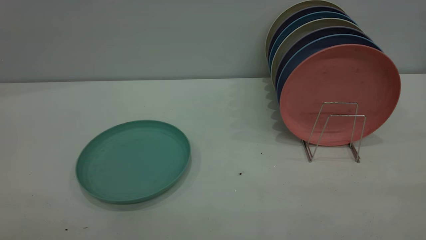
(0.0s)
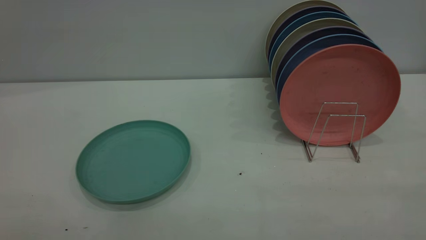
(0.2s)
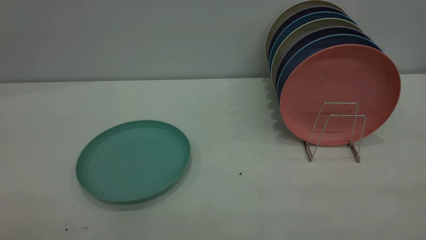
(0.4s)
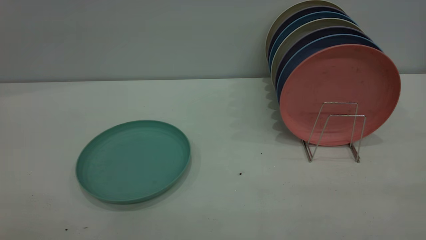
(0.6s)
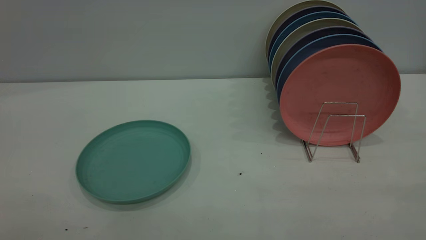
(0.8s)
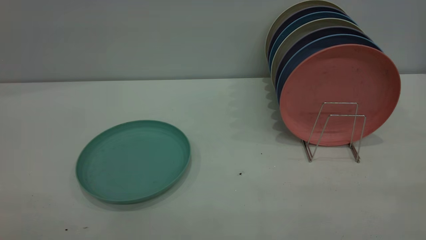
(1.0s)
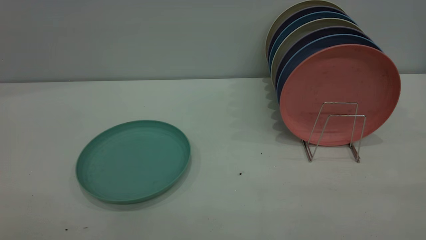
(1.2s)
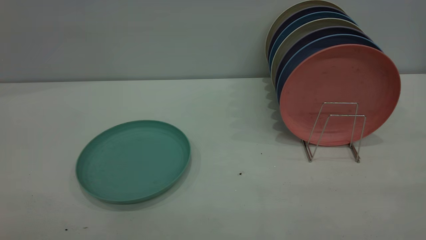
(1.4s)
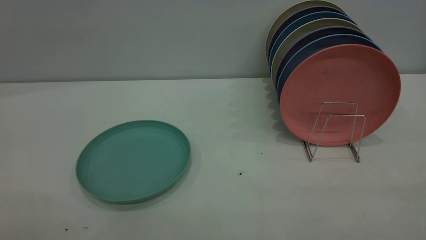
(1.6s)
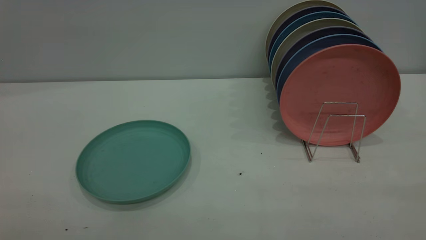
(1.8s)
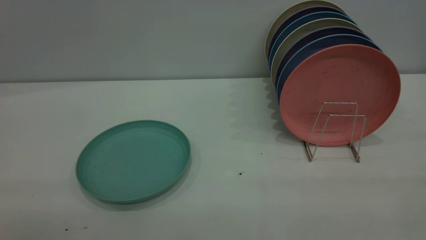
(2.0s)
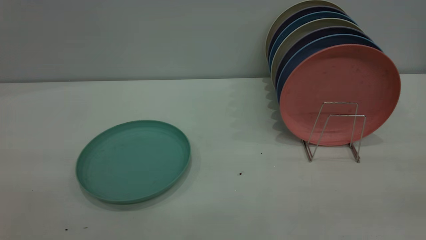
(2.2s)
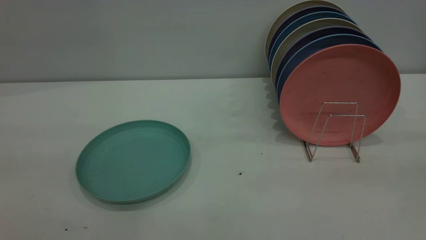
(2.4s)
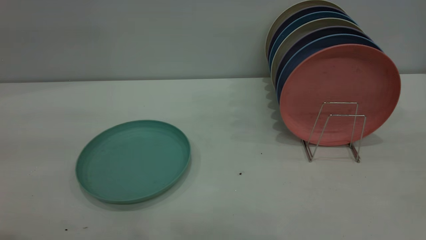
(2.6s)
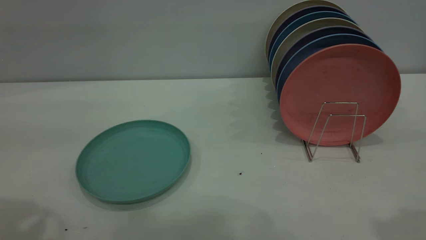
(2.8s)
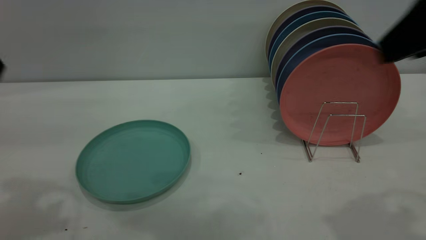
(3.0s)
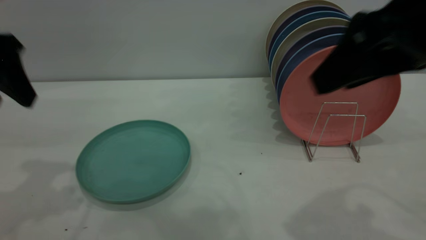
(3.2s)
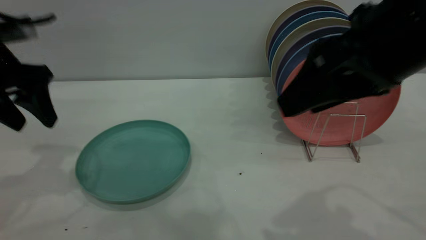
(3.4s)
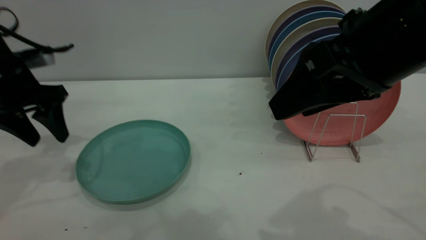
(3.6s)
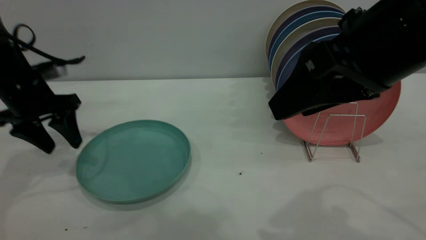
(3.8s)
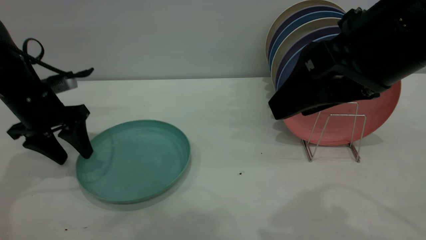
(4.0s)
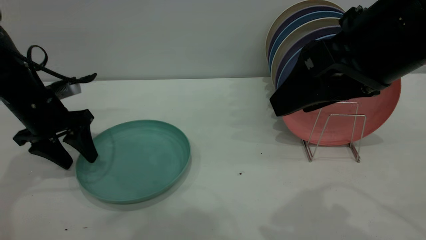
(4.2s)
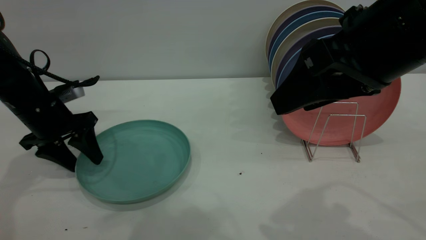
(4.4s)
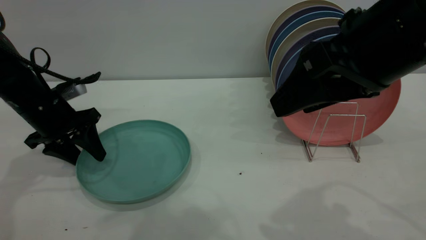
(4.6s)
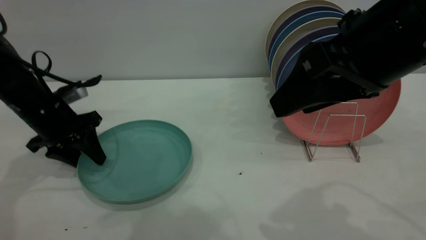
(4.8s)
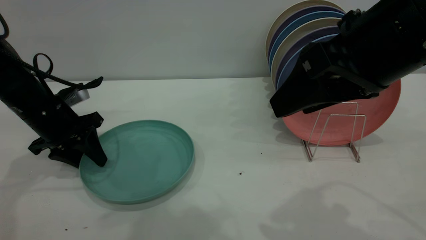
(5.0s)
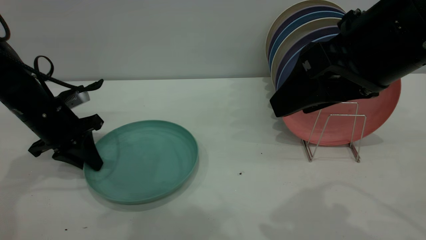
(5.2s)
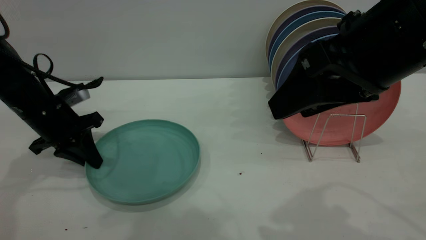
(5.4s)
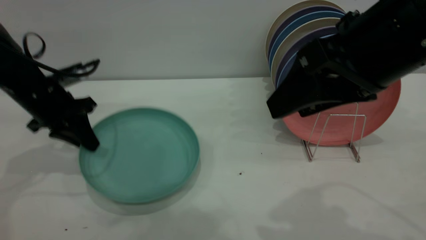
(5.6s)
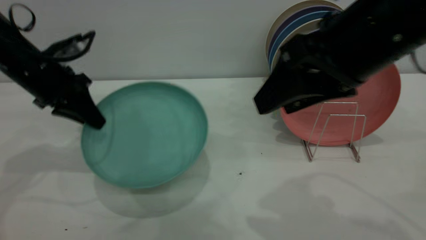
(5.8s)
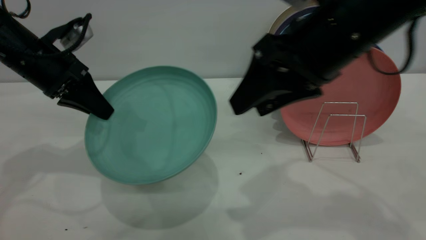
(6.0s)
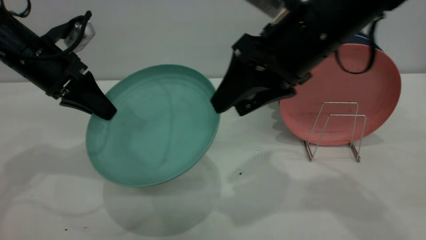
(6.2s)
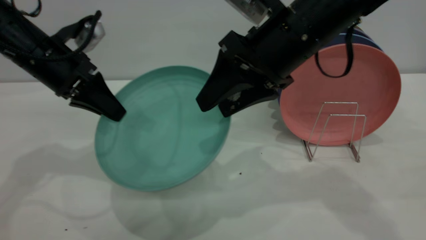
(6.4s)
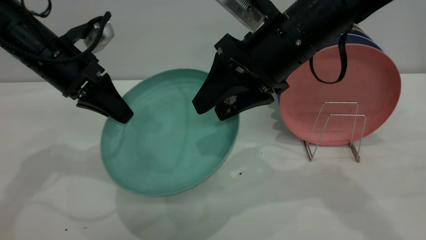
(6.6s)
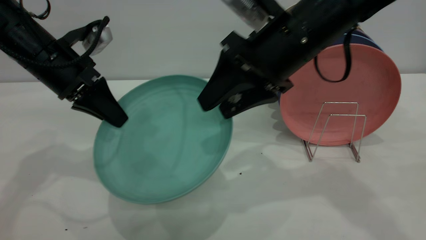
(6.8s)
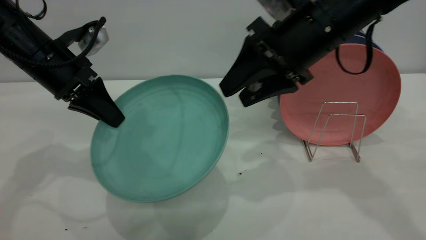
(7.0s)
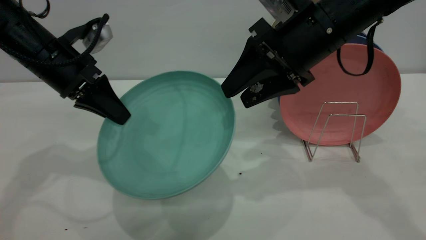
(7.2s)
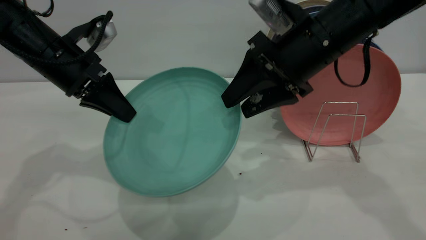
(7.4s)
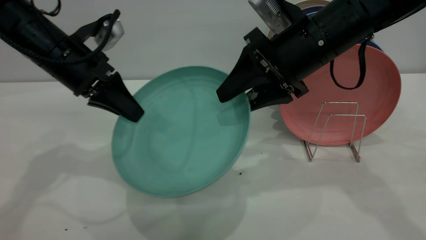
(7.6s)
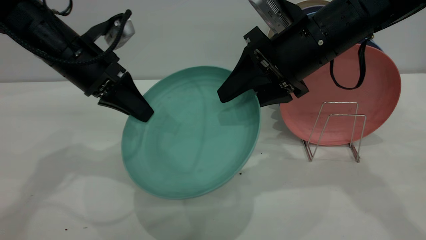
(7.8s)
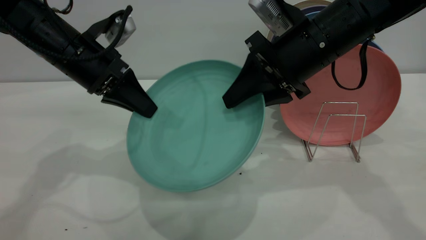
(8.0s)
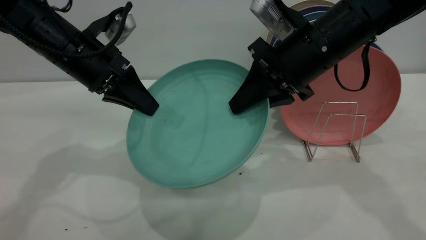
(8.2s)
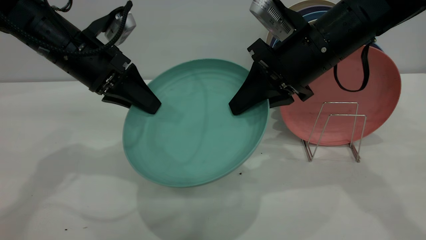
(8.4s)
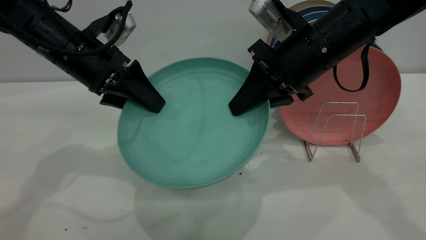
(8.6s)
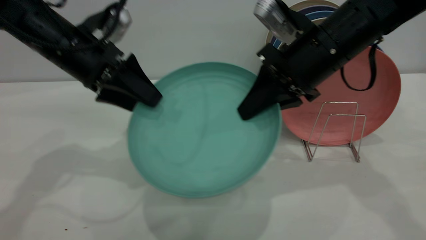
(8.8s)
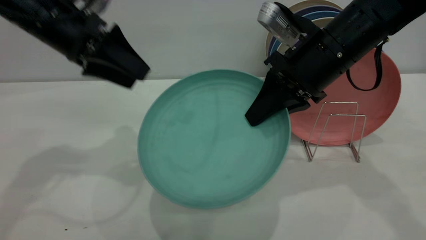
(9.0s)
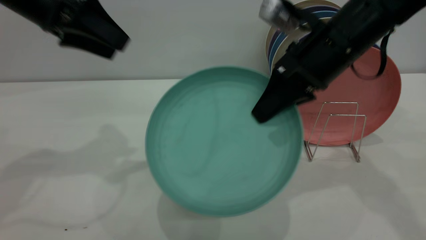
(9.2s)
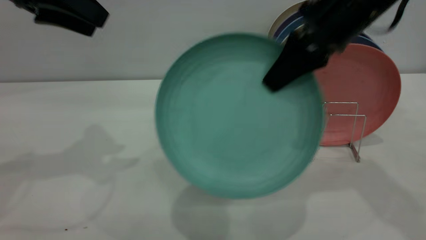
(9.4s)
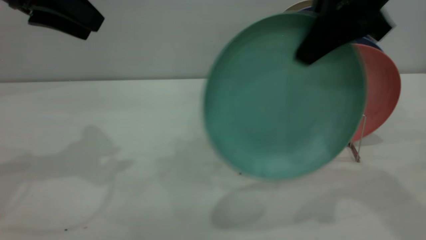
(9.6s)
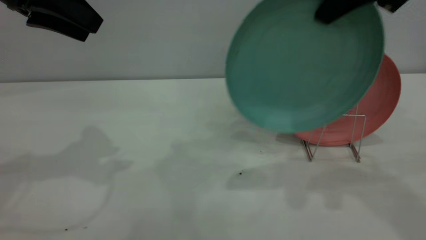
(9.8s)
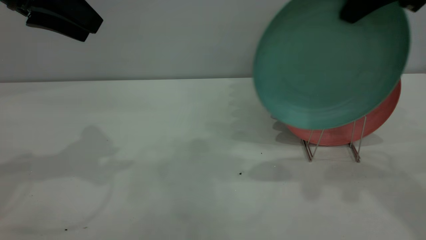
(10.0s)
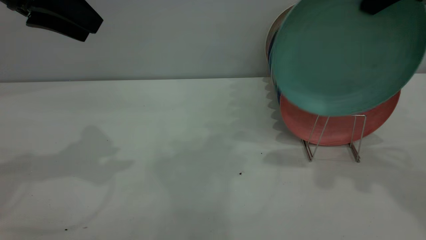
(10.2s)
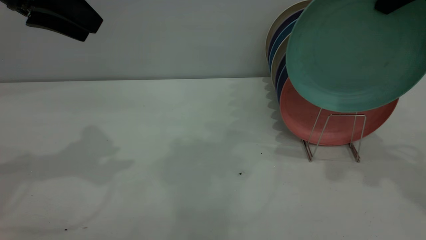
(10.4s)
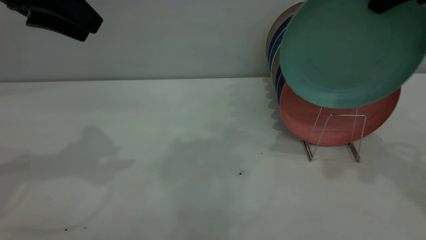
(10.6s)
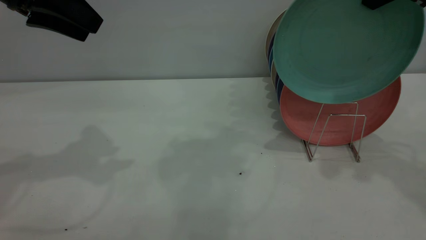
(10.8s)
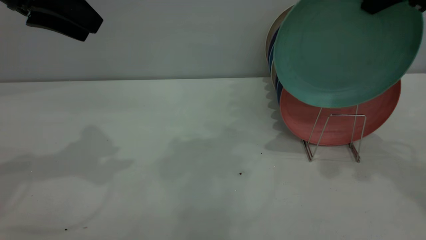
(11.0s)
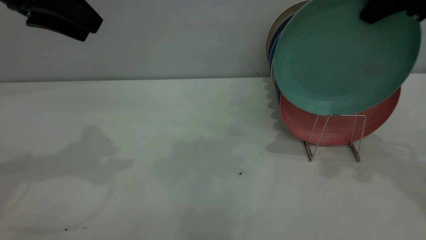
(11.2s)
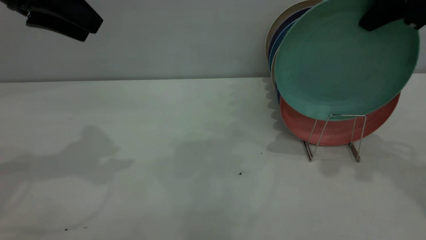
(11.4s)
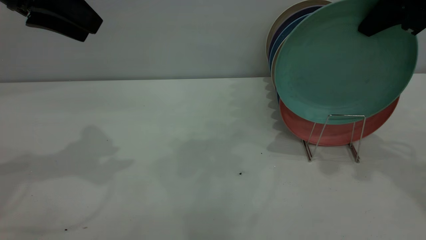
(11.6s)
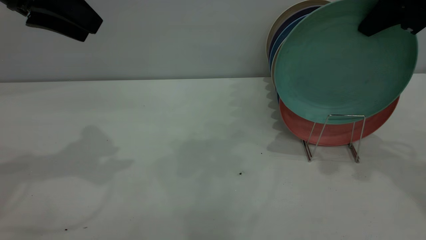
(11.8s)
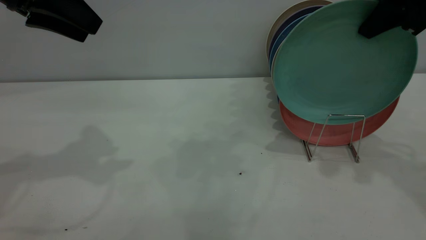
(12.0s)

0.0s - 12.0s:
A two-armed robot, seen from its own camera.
Task of the whole recording: the left gripper grasp the green plate, the left gripper pass the green plate to the right gripper, and the right gripper place the green plate on the plate rack.
Step, 0.0s - 5.6s: Pick up the plate with the left gripper.
Step, 5.8s - 9.0s: Pass the plate from the left gripper to the right gripper.
0.0s - 1.6s: Both grippers stay about where they are.
1.6s - 3.0s: The right gripper shifts about 25 cm forward.
3.0s - 4.4s: The right gripper moves to the left, about 5 cm; the left gripper goes about 25 cm downward and forward.
4.4s - 6.0s: The right gripper heads forward, covering about 5 cm; the left gripper is displaced upward by some 10 cm, and closes up.
6.0s - 7.6s: The left gripper travels to the right by about 5 cm. Meanwhile the right gripper goes some 5 cm forward.
7.6s - 9.0s: The left gripper is displaced upward by about 5 cm, and opens its fingers, while the right gripper closes.
9.0s - 10.4s: The left gripper shifts about 5 cm upward, while the right gripper travels upward and to the right by approximately 20 cm.
10.4s - 12.0s: The grippers stay close to where they were, moving slightly.

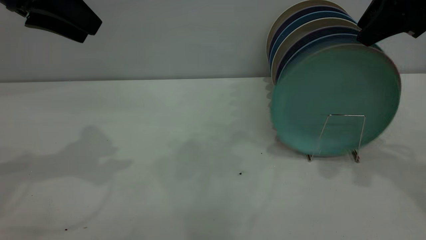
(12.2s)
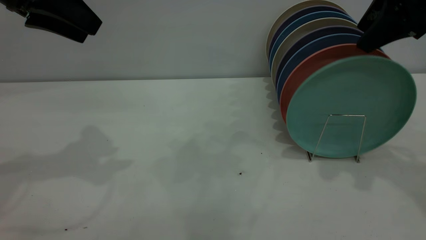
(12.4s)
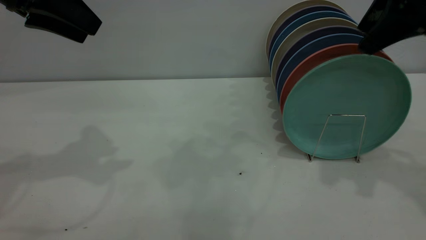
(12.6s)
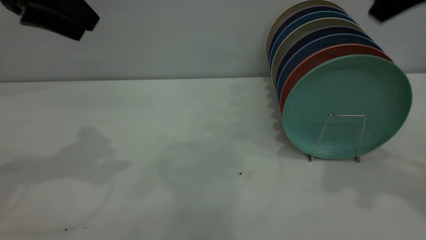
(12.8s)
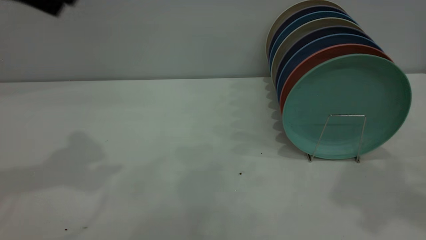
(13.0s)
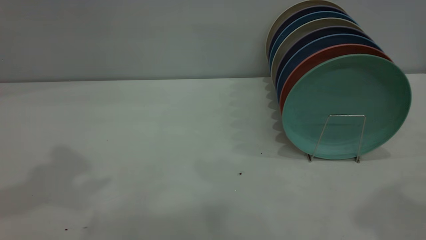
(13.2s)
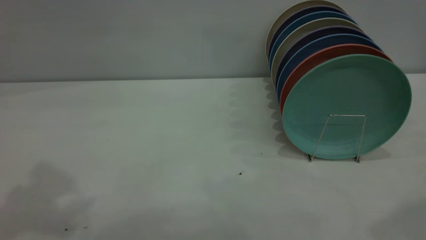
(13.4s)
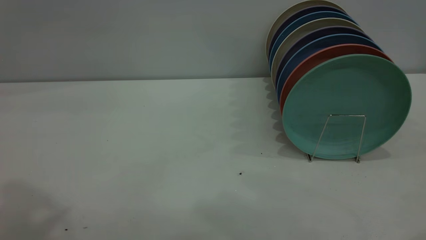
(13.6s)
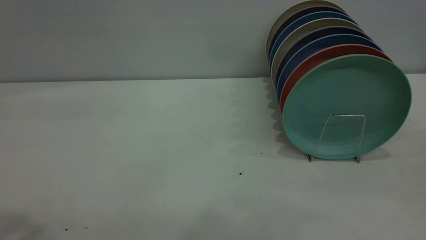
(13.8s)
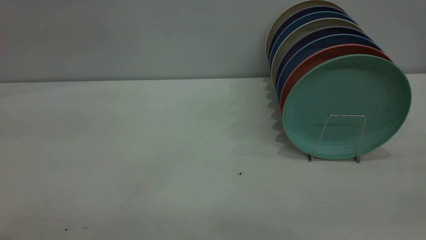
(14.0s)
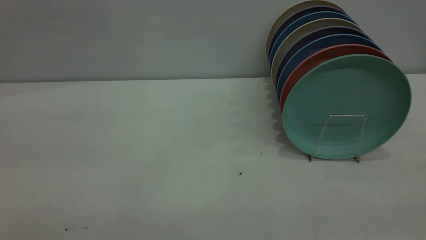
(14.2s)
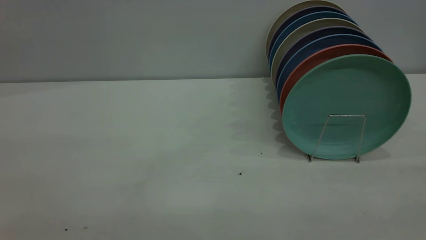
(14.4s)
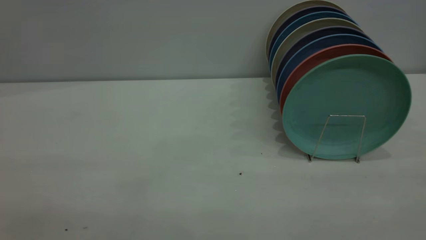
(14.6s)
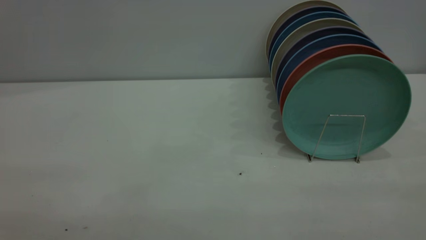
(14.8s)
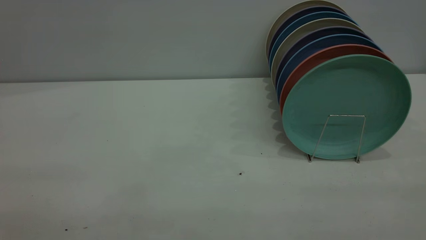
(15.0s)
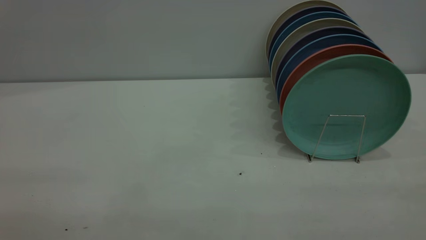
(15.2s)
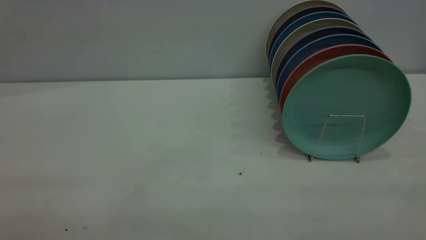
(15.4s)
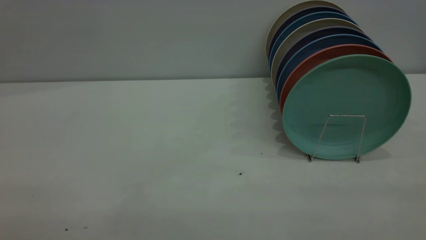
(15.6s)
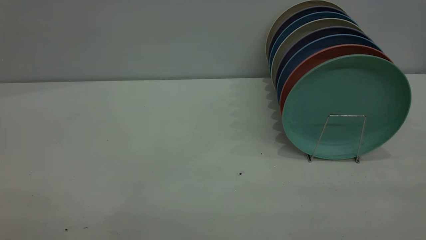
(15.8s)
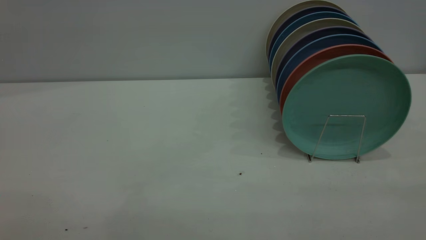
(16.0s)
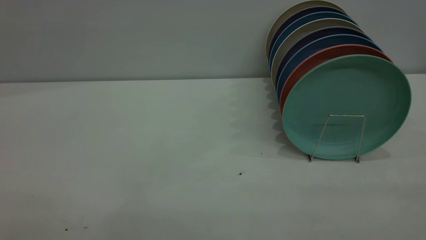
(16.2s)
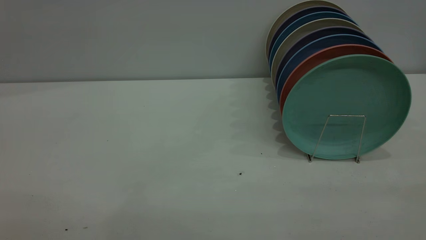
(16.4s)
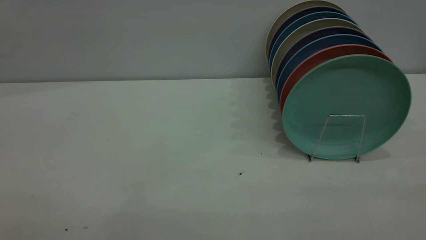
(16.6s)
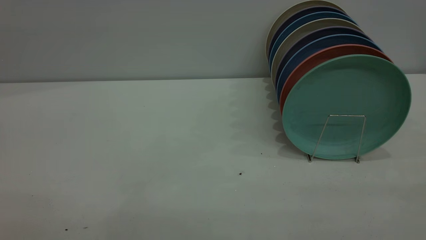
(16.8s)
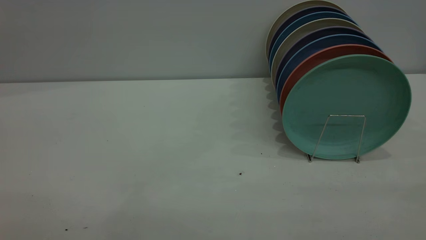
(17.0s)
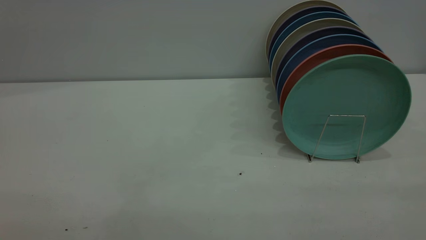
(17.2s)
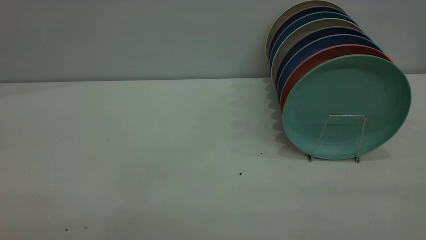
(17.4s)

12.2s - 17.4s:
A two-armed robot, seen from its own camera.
Task of the whole recording: the left gripper grasp the green plate, the left gripper pass the green plate to the right gripper, and the right gripper place the green plate on the plate rack.
12.2s - 14.0s: The left gripper shifts approximately 25 cm backward and upward, while the right gripper is displaced backward by about 30 cm.
15.6s - 17.4s: Both grippers stay put.
